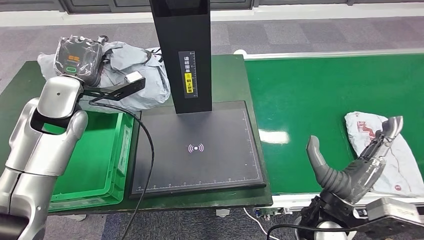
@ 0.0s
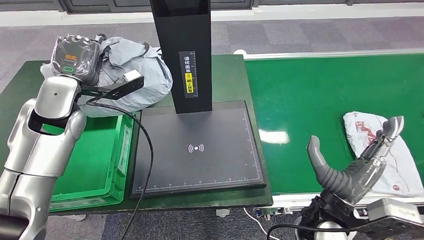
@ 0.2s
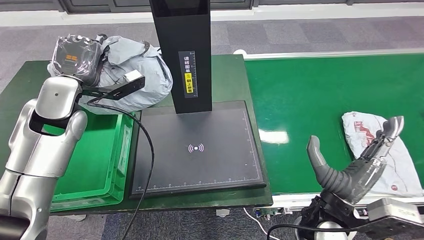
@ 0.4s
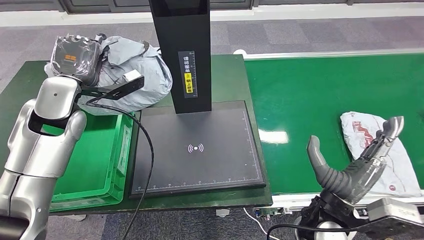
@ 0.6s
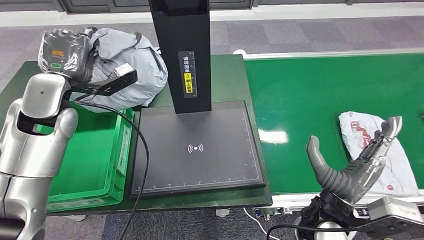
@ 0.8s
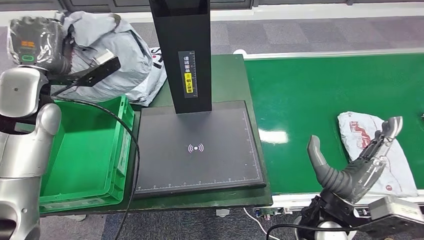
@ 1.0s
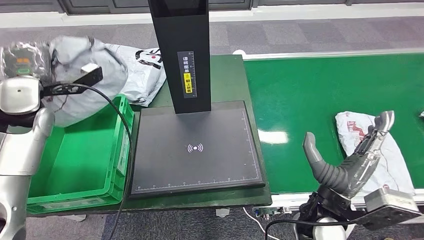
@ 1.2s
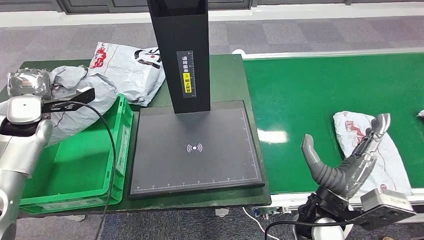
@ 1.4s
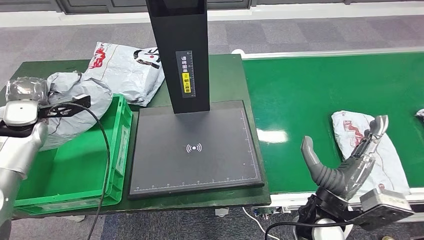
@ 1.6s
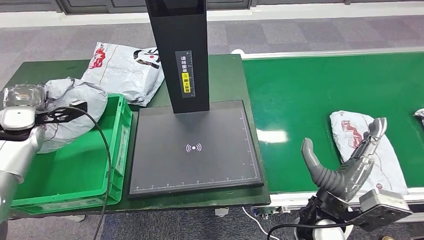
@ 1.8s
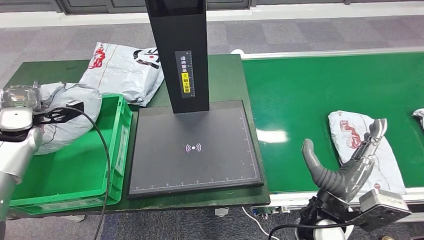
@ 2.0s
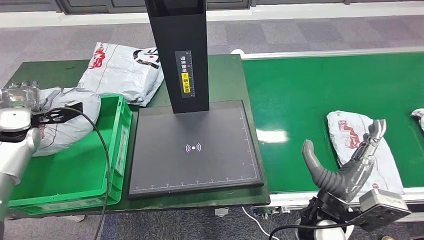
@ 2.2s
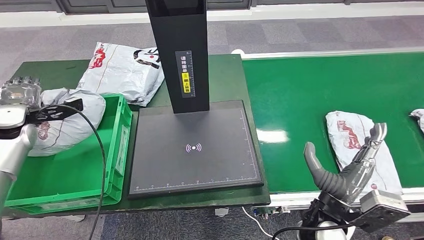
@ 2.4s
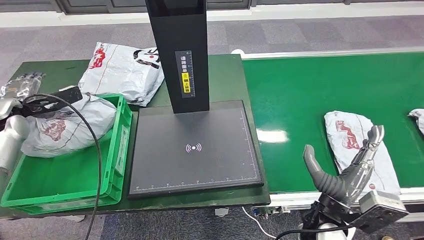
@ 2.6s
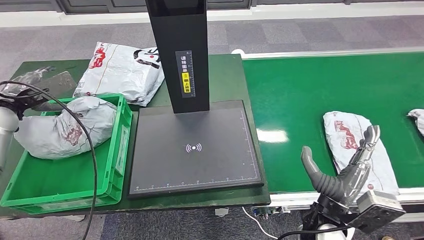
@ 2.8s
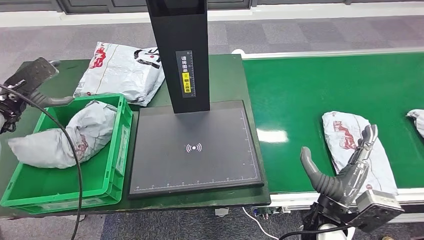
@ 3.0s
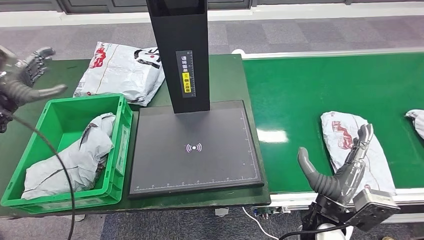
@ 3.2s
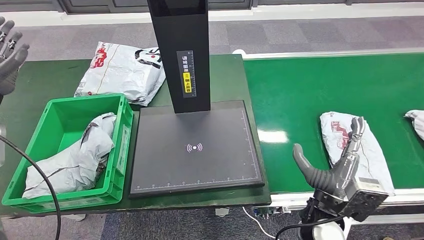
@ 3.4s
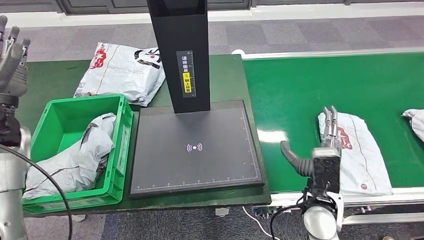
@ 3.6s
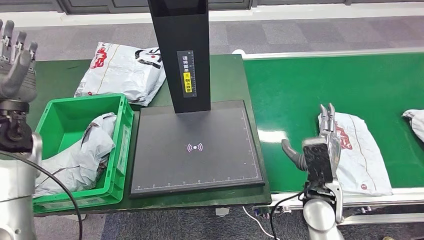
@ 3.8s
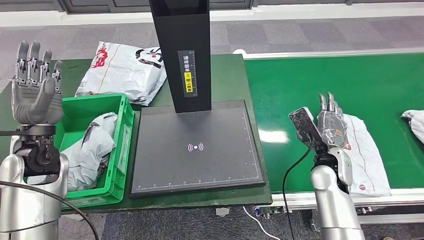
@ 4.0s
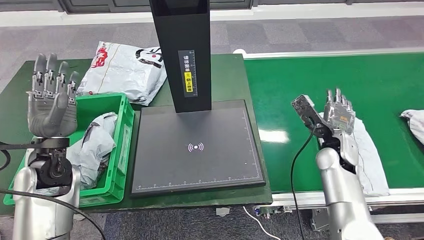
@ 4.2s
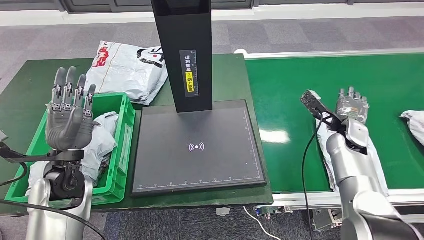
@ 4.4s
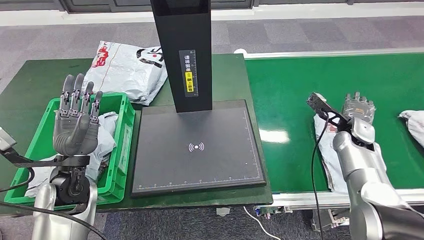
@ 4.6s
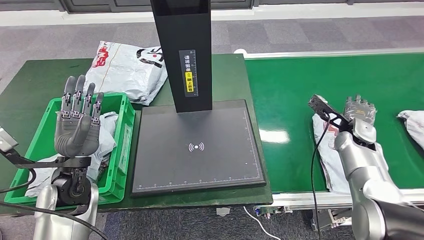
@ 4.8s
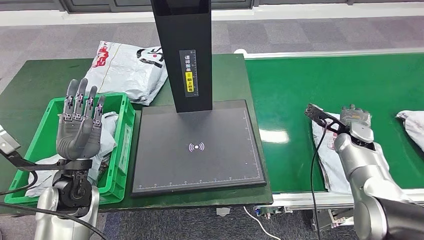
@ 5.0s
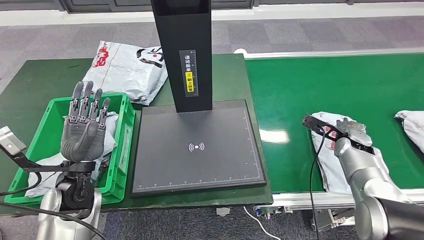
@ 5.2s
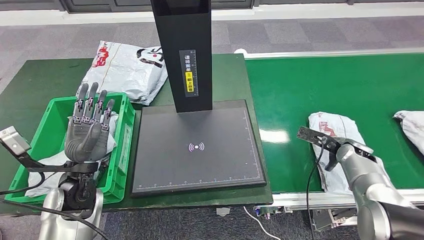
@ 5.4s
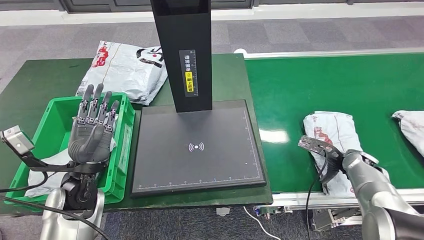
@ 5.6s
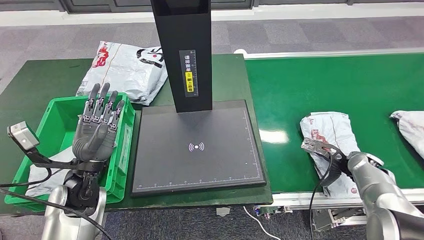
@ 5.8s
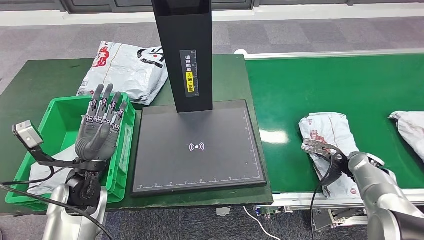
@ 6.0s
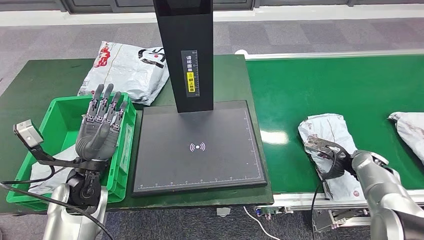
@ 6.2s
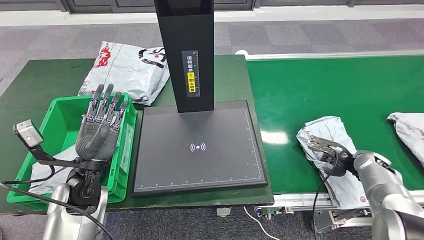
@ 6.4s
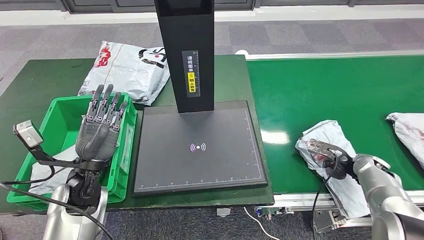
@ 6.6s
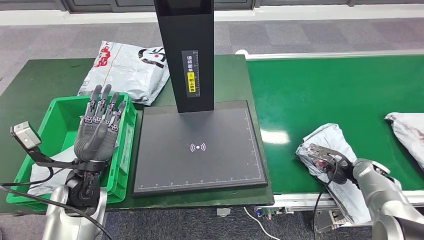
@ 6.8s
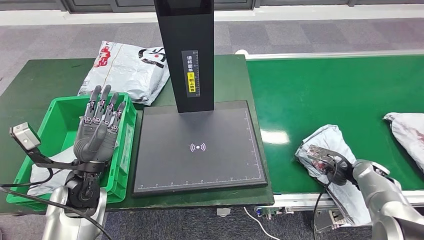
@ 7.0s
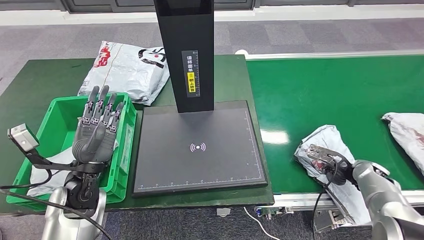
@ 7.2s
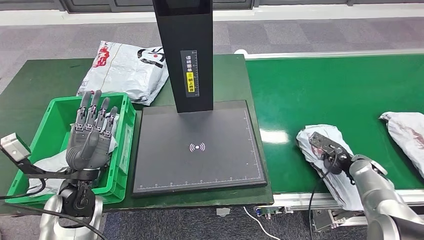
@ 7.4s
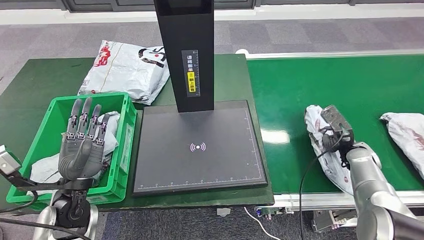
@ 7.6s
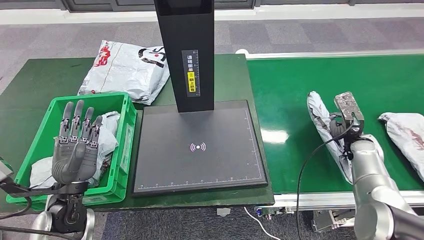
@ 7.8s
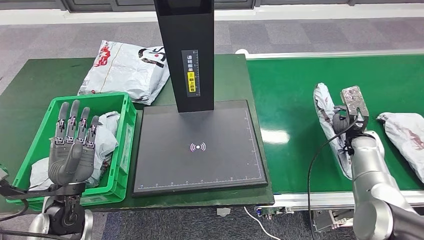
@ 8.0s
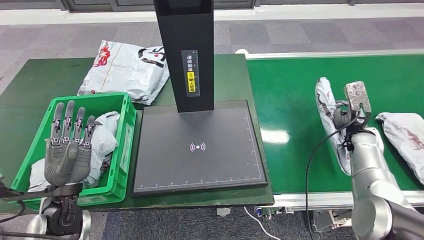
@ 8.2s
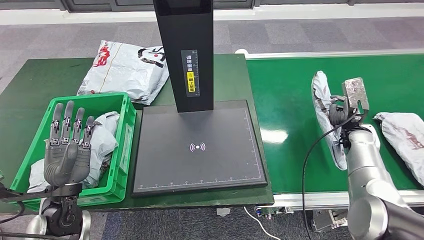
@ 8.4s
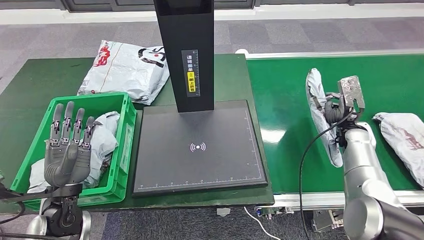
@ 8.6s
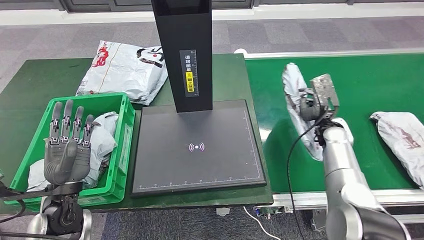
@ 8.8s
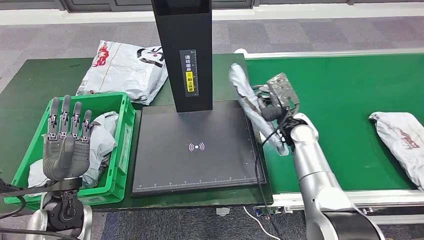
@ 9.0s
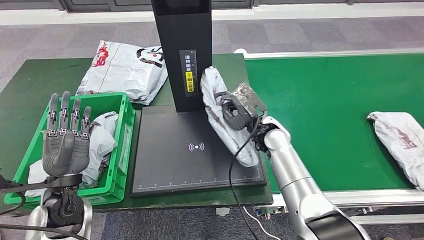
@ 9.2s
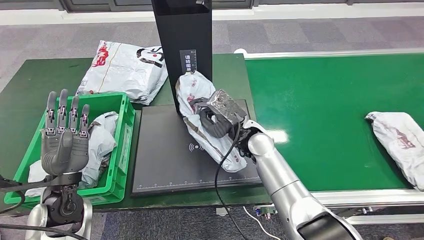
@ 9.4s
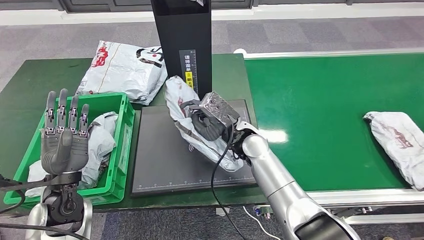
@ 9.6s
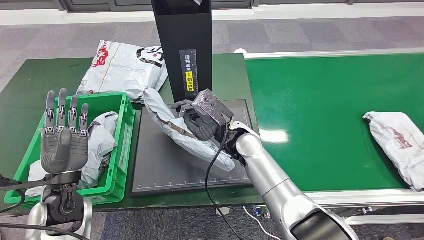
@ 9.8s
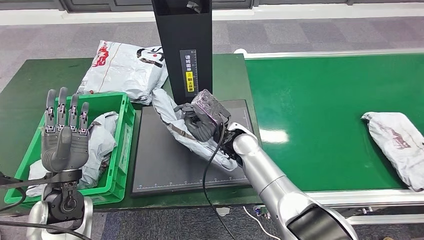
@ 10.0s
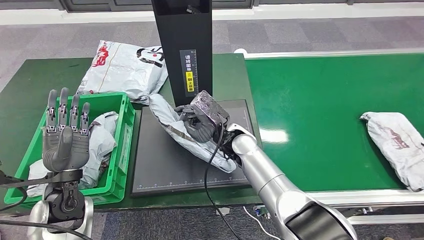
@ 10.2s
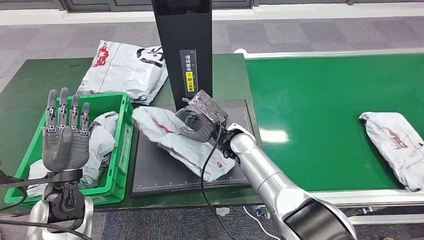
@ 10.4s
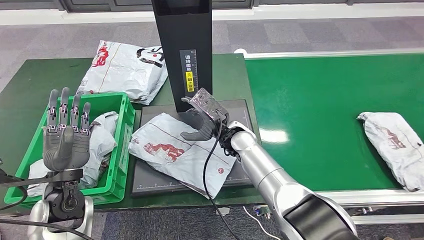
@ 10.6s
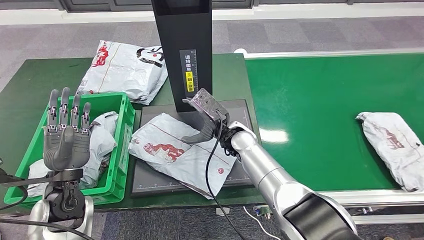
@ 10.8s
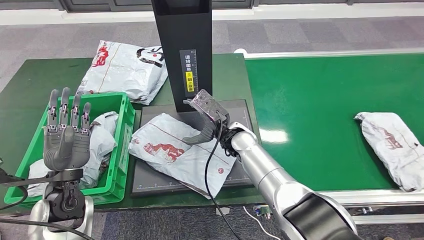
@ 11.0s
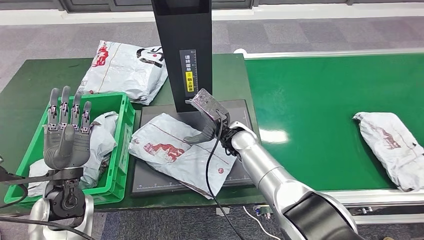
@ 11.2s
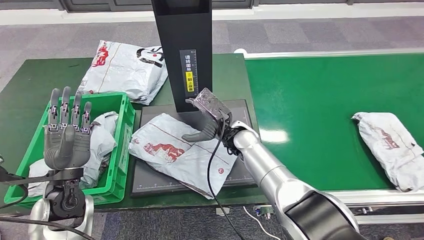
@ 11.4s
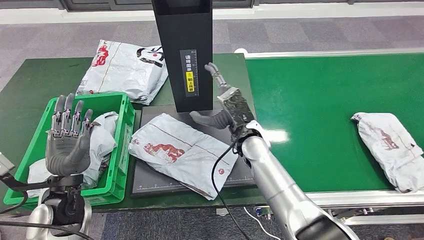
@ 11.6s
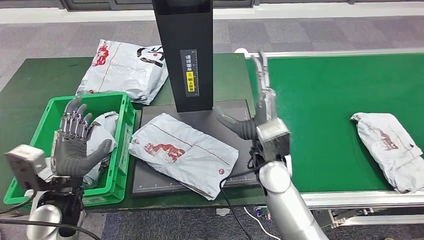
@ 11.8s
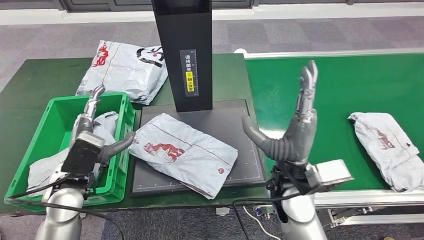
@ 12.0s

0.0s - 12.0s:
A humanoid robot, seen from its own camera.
Step, 0.6s - 3.8s: Put the parcel inside the courier box.
Step, 4.2s - 8.8s: Pick up the parcel from the conveyor belt.
Step, 9.0s - 11.8s: Place the parcel onto the inbound machine.
1.6s - 3.0s: The left hand shifts by approximately 5 cm.

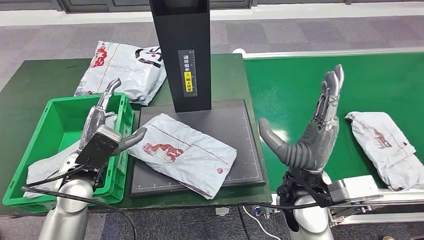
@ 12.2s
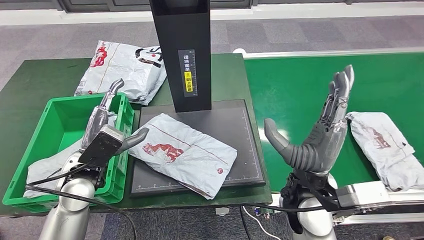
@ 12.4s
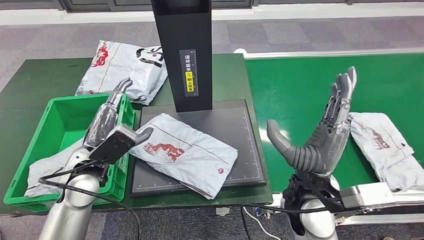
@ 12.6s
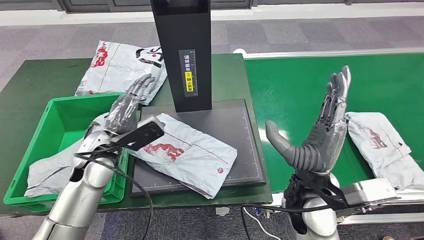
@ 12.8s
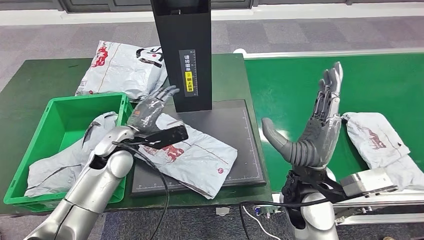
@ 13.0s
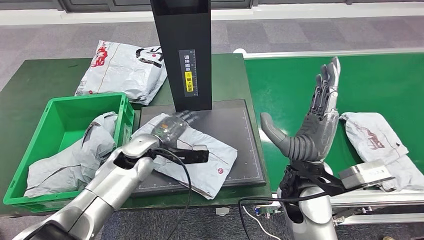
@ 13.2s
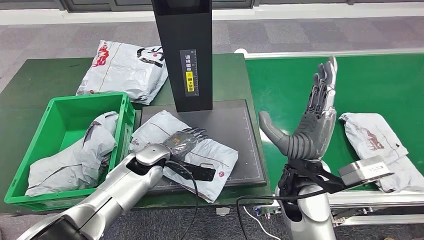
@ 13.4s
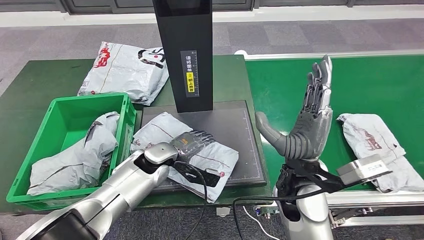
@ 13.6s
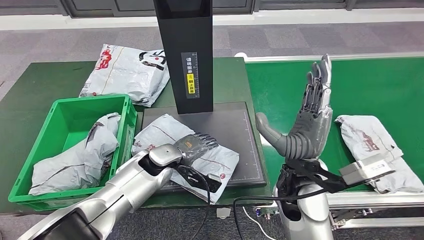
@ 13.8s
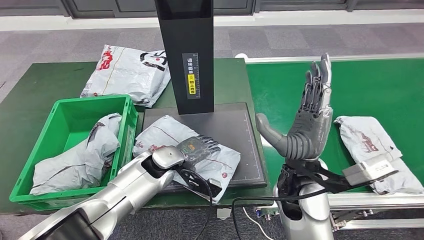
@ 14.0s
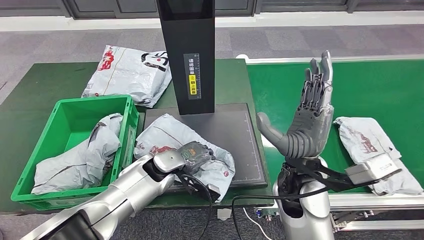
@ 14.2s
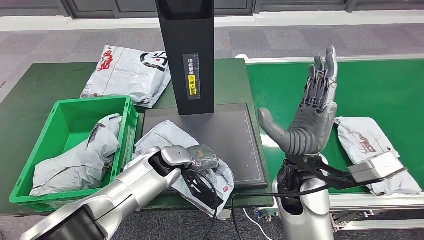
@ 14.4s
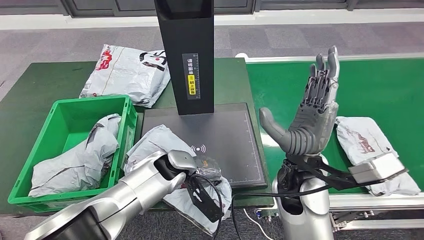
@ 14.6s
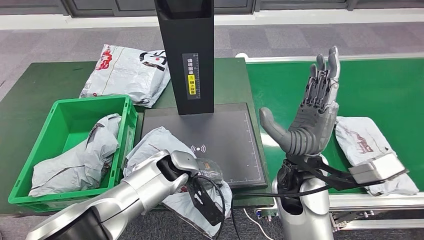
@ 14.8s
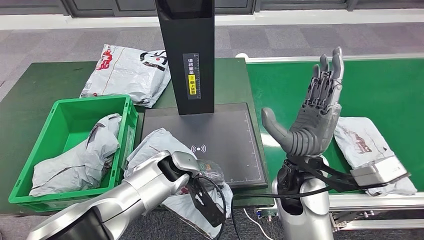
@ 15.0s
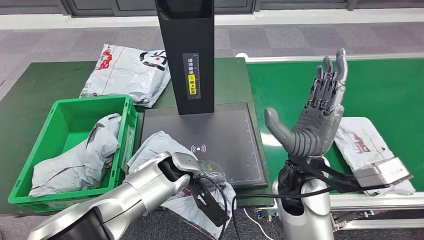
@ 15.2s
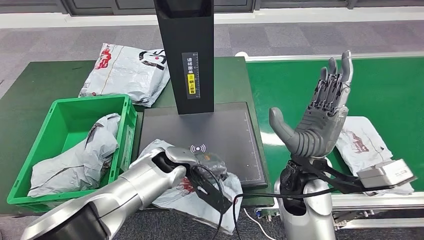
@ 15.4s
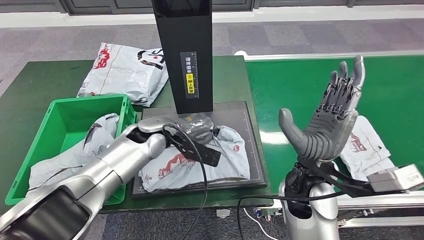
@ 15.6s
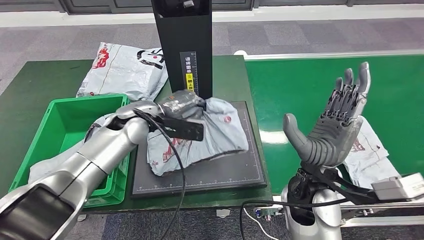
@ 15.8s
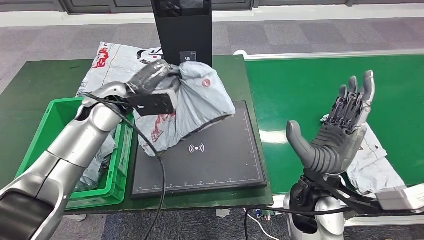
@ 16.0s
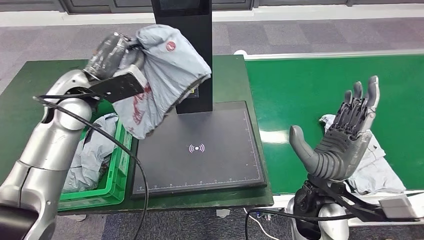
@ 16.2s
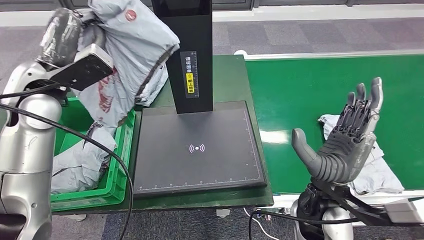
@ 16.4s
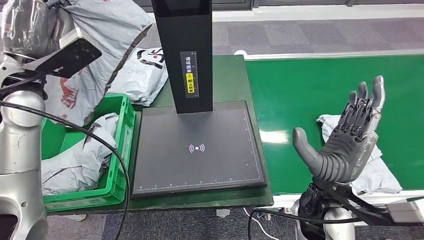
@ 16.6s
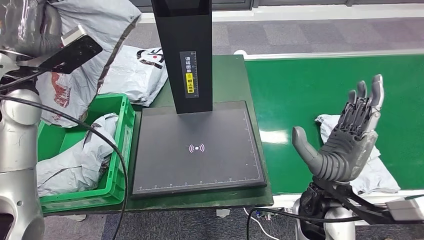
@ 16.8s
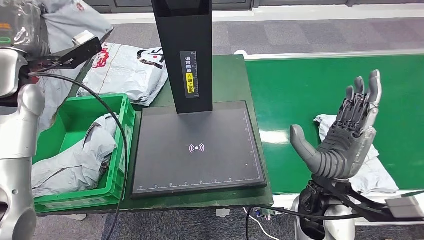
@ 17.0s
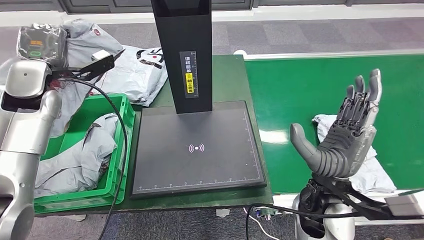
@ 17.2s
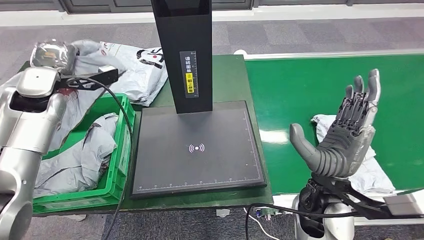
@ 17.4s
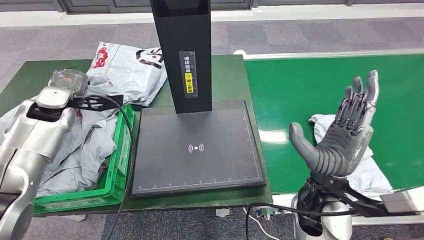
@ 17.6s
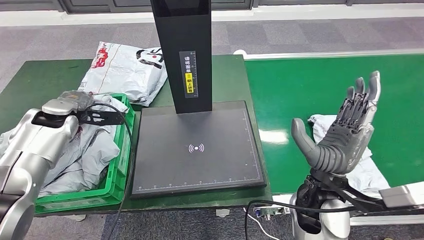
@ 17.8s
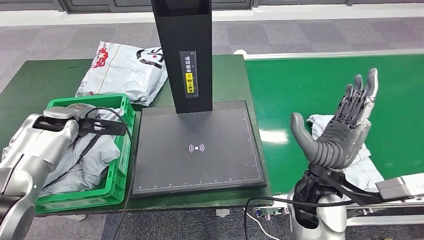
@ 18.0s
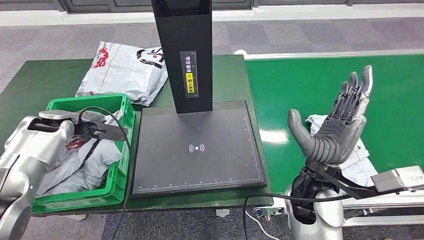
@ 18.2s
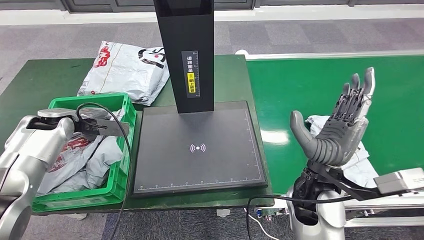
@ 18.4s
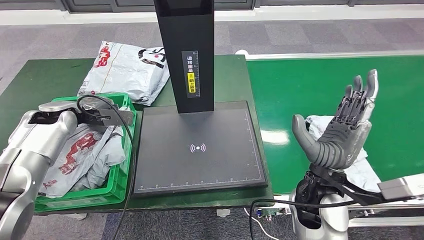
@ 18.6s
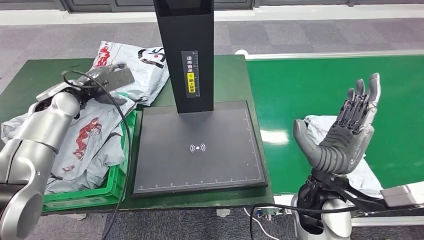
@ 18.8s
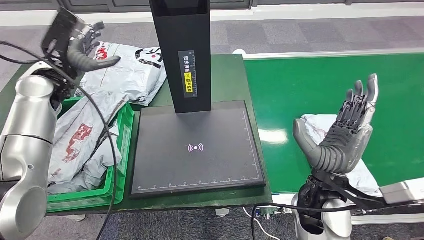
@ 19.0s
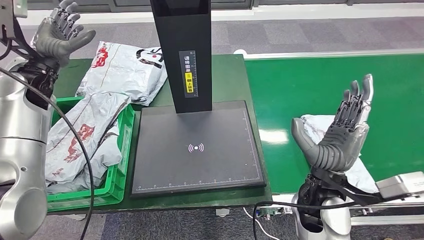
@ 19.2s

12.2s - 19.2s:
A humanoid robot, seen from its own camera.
Step, 12.2s - 16.6s: Pick up the parcel from the inbound machine.
